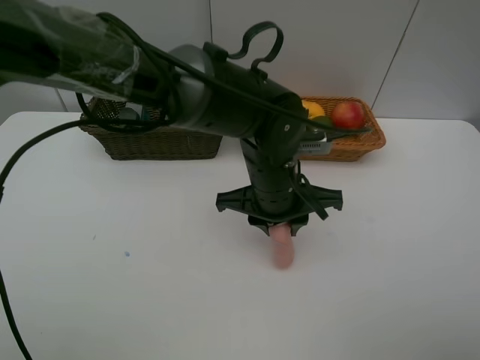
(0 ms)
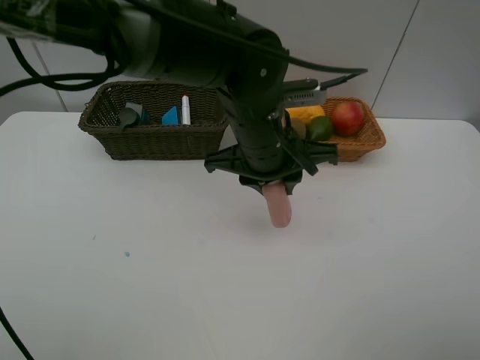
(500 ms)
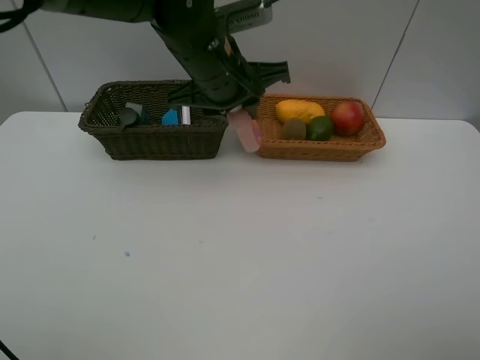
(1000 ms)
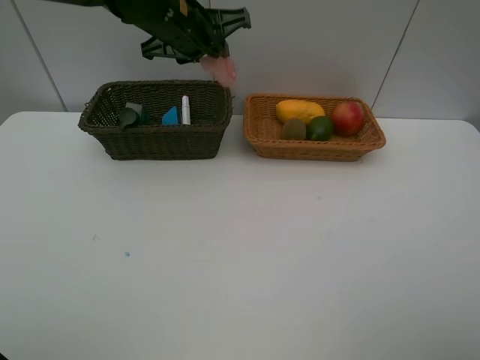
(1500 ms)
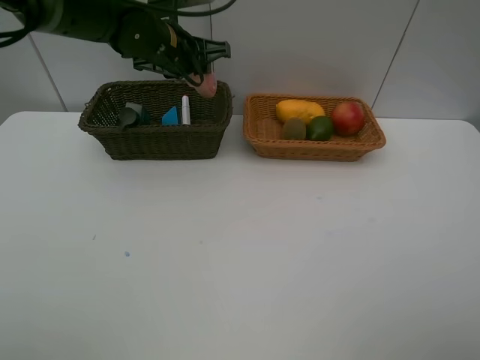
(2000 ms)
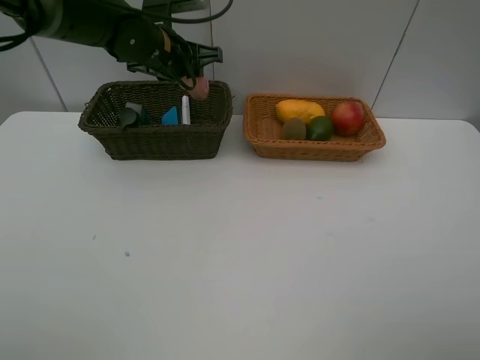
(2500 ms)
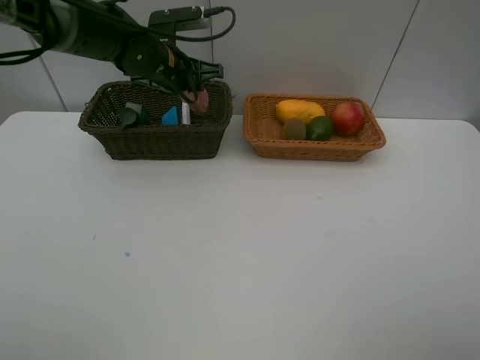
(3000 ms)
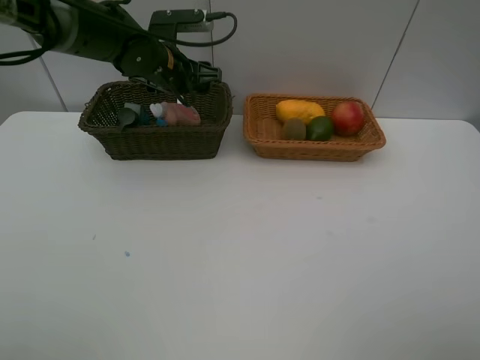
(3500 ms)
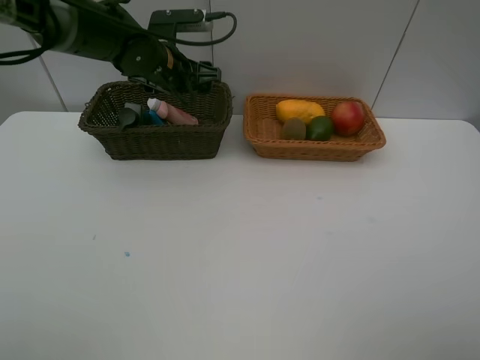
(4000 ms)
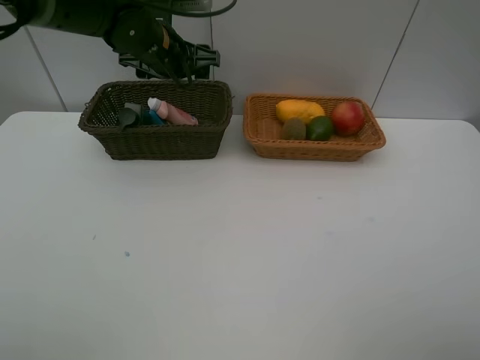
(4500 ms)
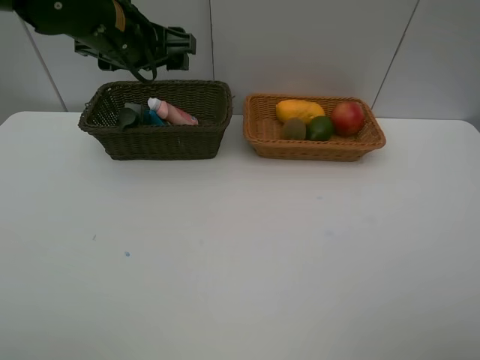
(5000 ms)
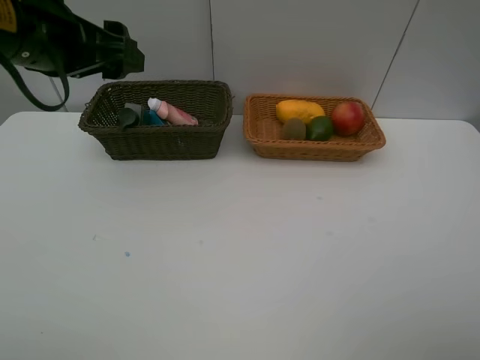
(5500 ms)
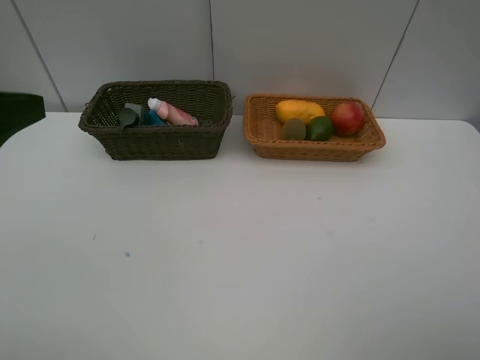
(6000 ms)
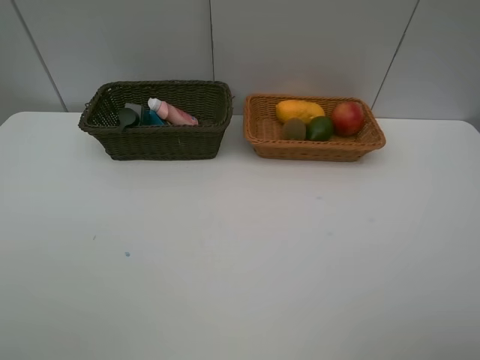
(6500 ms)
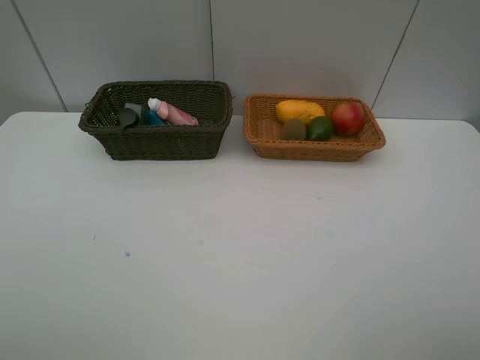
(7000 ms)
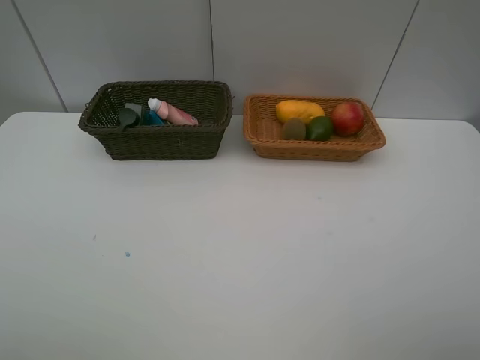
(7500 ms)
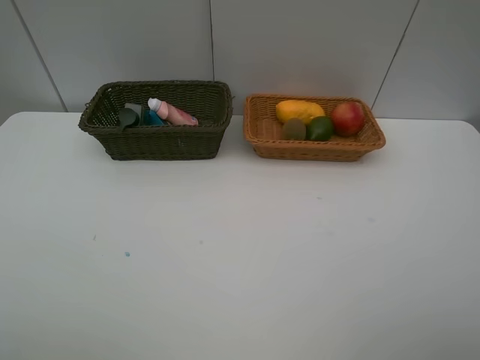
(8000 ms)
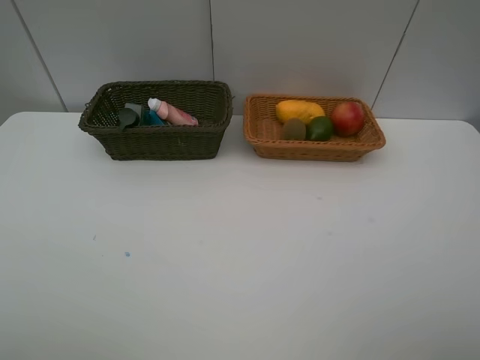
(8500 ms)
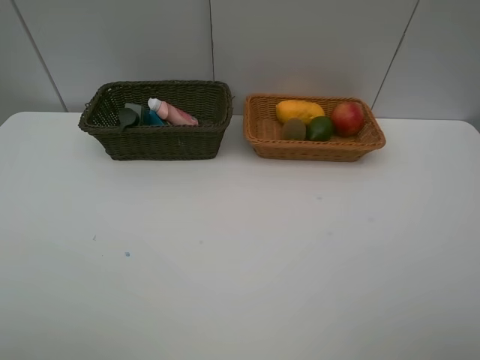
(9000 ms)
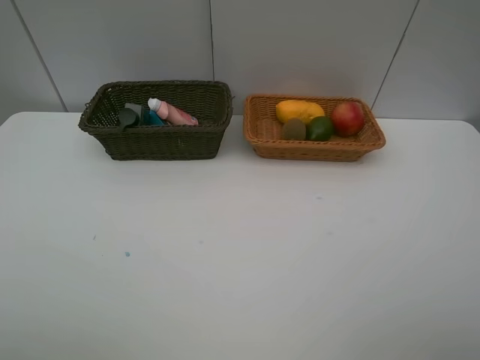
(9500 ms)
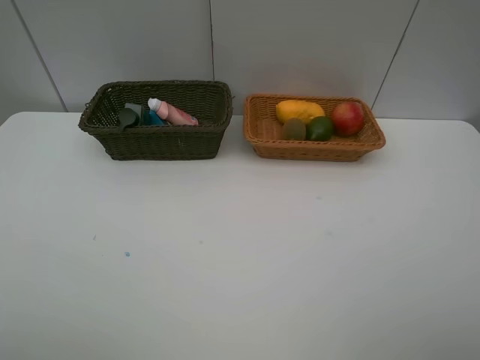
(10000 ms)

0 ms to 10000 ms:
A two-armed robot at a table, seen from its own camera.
Task of the whole recording: Place multiple objects separately in different baskets.
Step, 500 ms to 3500 ms: Place the laundry detergent in the dark basket with left gripper.
0 ms to 2000 ms: The left gripper moves forward, to the left and upward, about 25 cm.
2000 ms to 4000 ms: The left gripper opens.
4000 ms to 6000 ms: The left gripper heads backward and to the left, covering about 35 cm.
6000 ms to 8000 ms: The left gripper is displaced backward by about 10 cm.

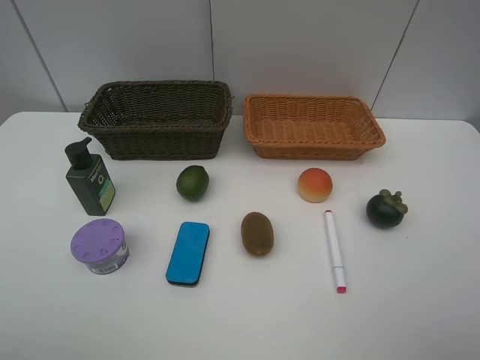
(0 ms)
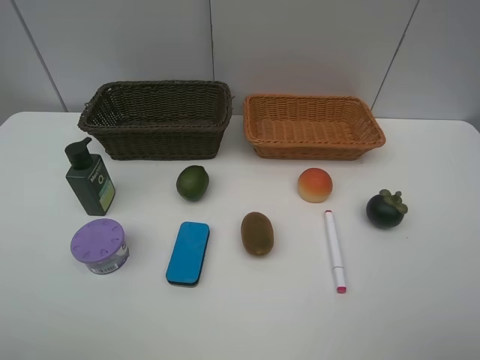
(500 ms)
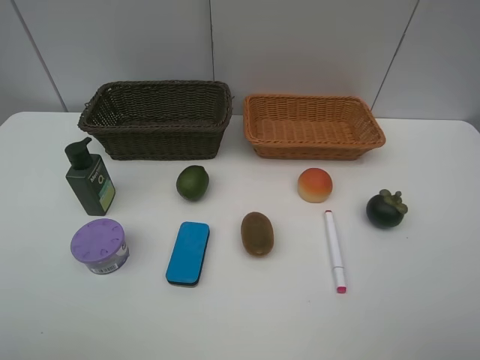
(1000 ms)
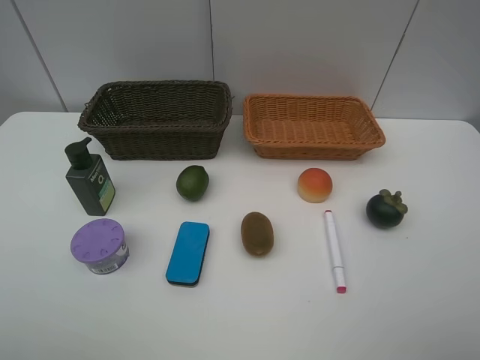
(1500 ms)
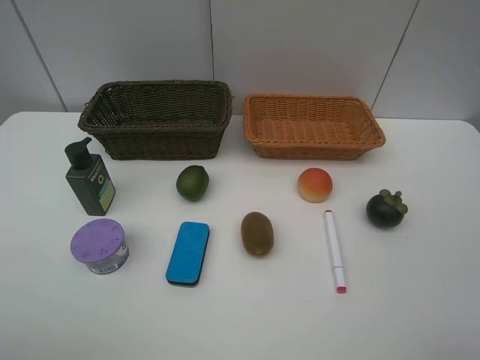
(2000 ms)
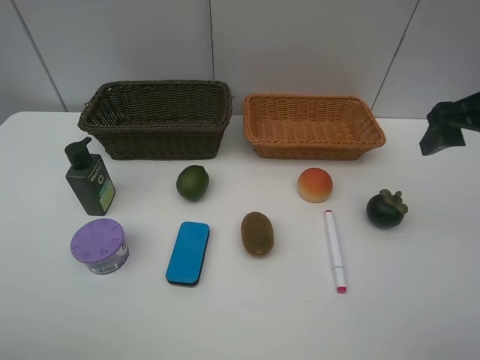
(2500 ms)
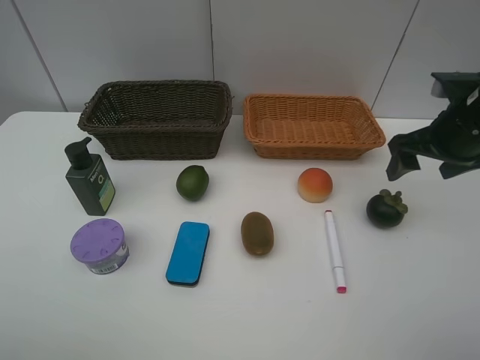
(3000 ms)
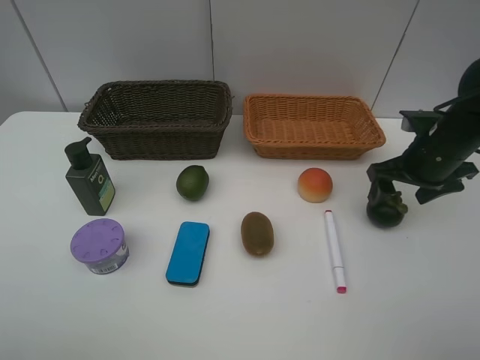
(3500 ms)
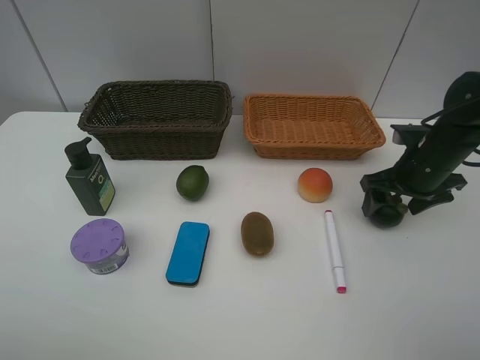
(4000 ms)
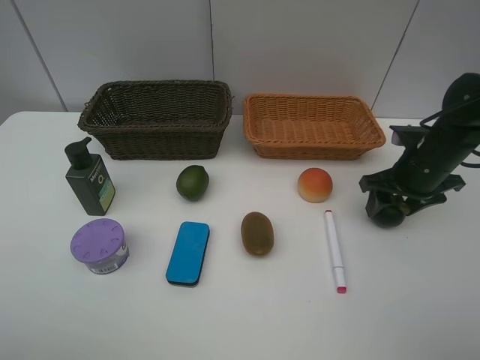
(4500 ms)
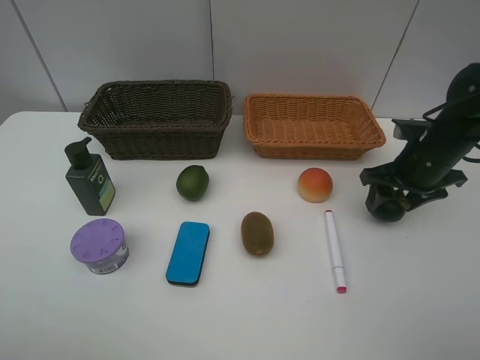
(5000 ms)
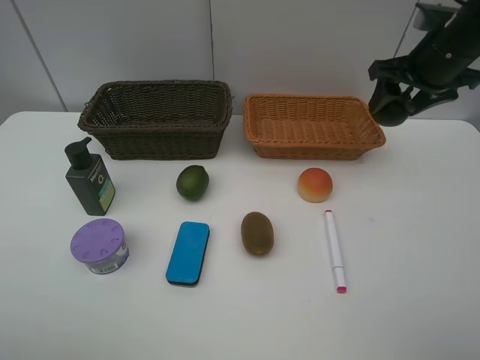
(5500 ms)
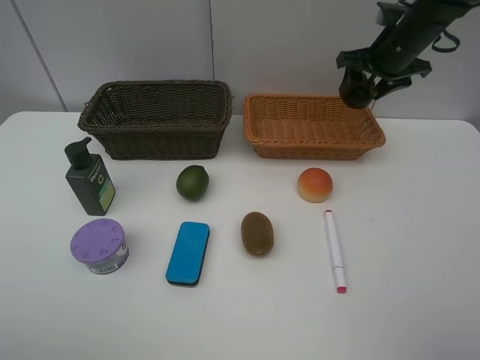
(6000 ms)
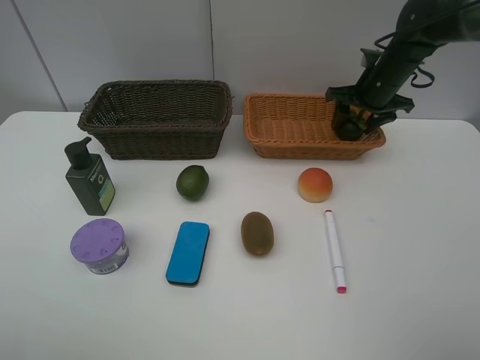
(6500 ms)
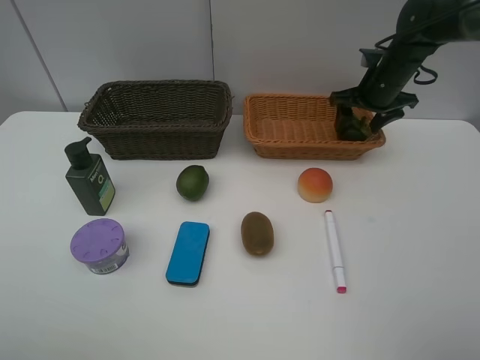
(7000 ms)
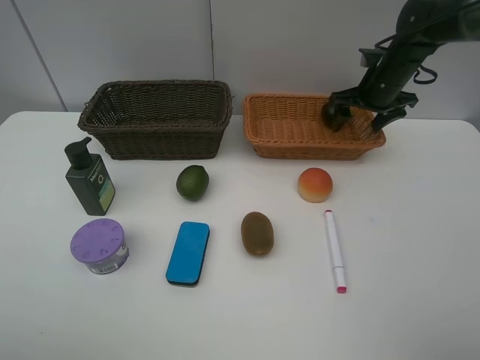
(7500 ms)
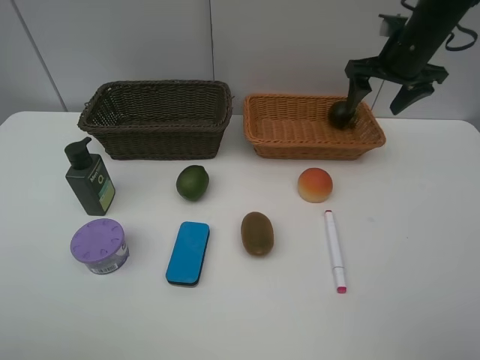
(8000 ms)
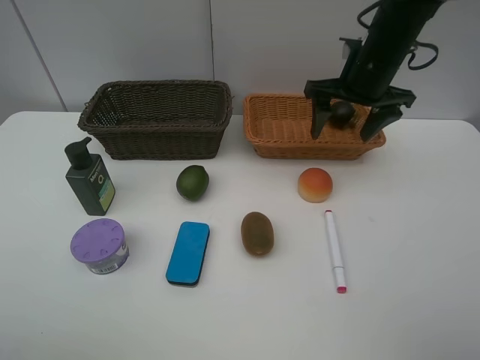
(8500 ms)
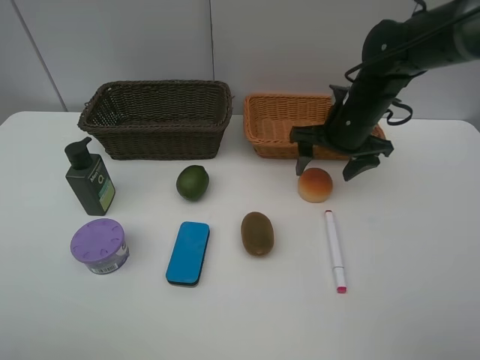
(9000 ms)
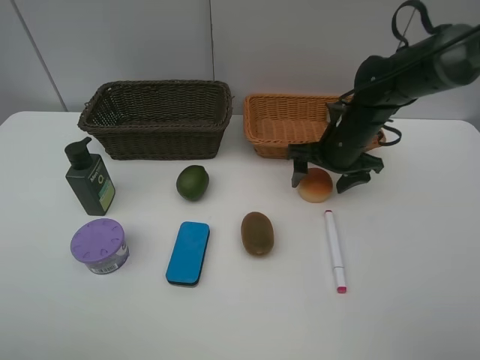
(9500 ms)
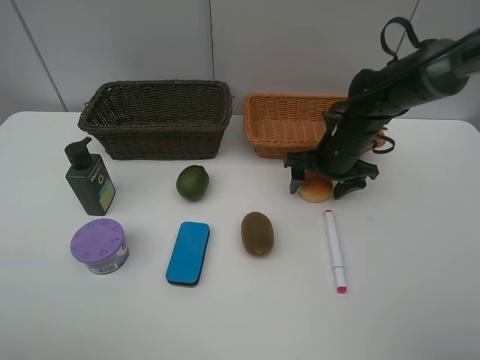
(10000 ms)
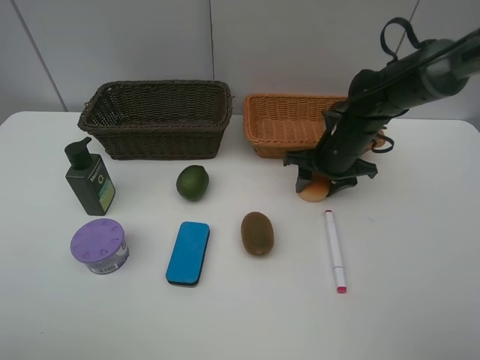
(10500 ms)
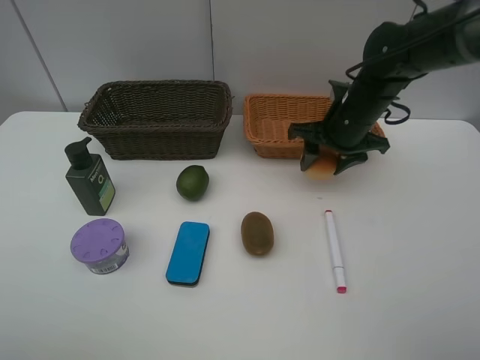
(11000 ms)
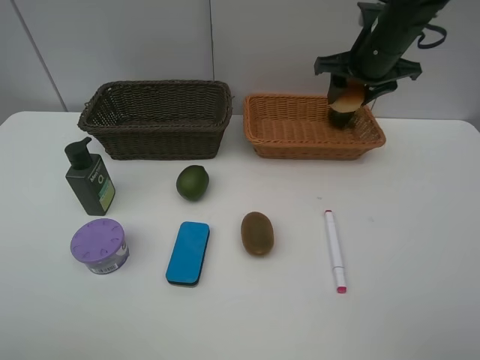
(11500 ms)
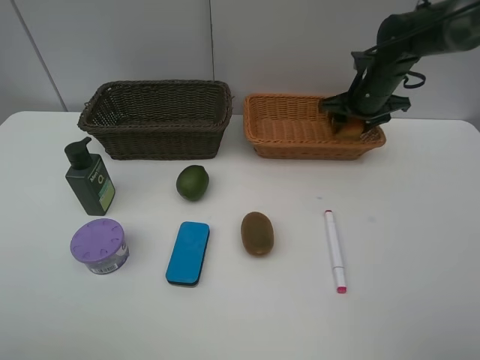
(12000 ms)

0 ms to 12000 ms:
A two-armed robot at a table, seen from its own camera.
Task of the whole recording: Place multiple objects separately in different baskets.
Step, 0 ms to 5000 ms: Pick up the mangosteen with right gripper.
Step, 5500 ms to 7500 ms: Place the mangosteen in the light basket with right gripper.
Step, 8000 ms to 10500 ms: Pick up egg yolk pastry with right gripper.
2000 ms to 4000 ms: The right gripper heads downward and forward, covering about 30 cm.
4000 ms to 6000 ms: The right gripper is displaced forward and upward by approximately 20 cm.
6000 ms to 8000 ms: The right gripper moves about 5 cm downward and comes back.
8000 ms to 10000 ms: The right gripper shifts about 15 cm downward and to the left.
10000 ms to 12000 ms: The right gripper shifts roughly 10 cm forward, to the right and upward, and closes.

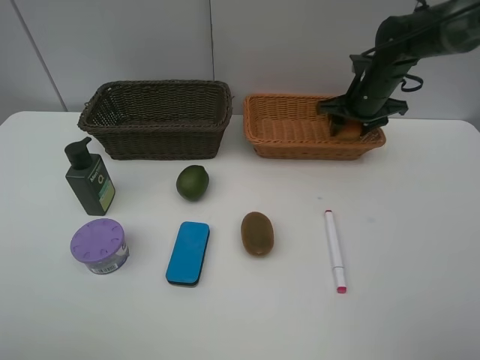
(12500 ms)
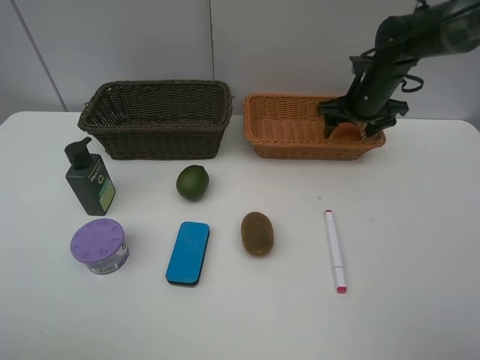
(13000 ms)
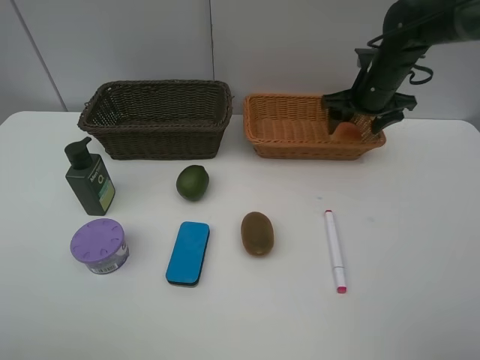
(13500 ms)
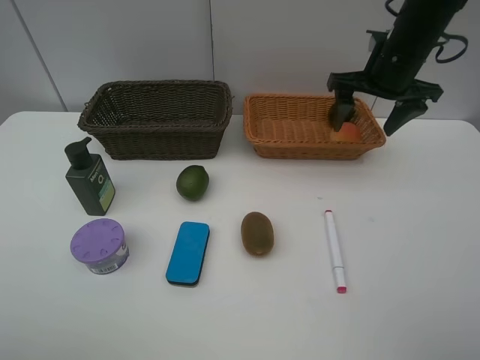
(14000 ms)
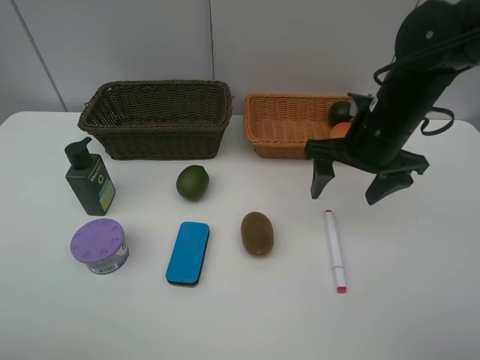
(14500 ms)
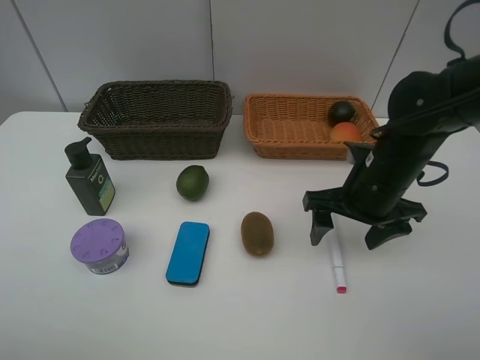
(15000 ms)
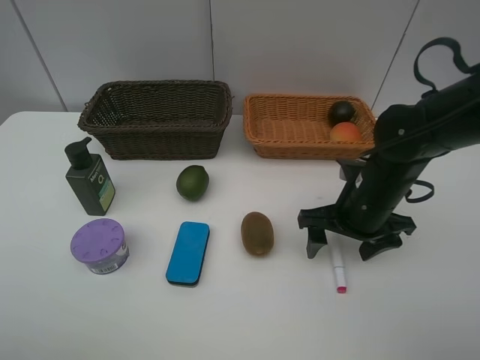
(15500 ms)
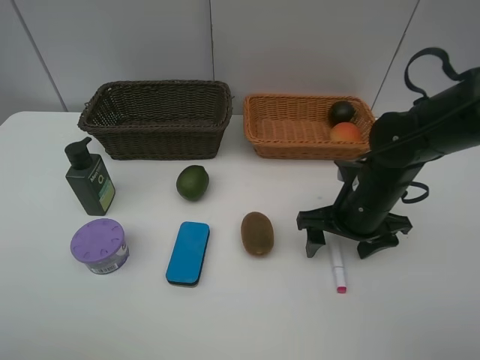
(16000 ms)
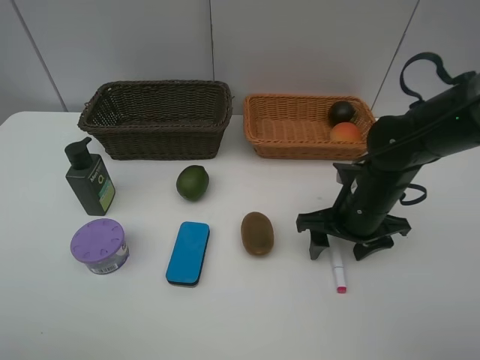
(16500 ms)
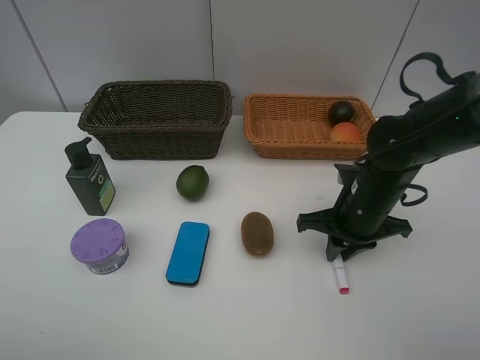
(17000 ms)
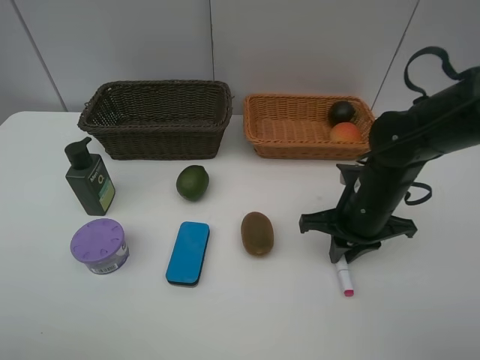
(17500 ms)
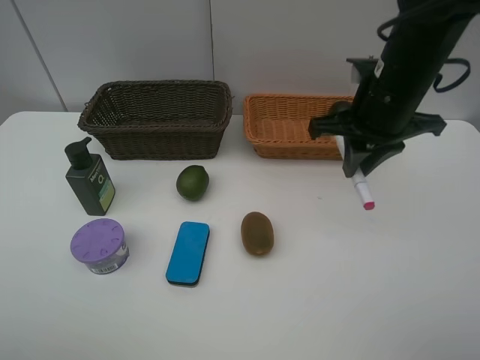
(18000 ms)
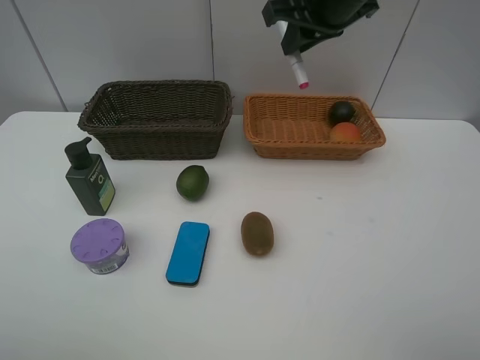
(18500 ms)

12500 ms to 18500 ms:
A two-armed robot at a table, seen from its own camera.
Task of the whole recording: Place multiple objects separately in different baskets.
Step, 14000 ms to 17500 ms: Pick up the red marker with right gripper.
12500 ms to 14500 ms: The right gripper travels backward by some 15 cm, and opens up.
14500 ms to 16500 ms: The right gripper is displaced downward by approximately 10 cm.
16500 ms to 18500 ms: The right gripper goes some 25 cm upward and forward, and closes.
